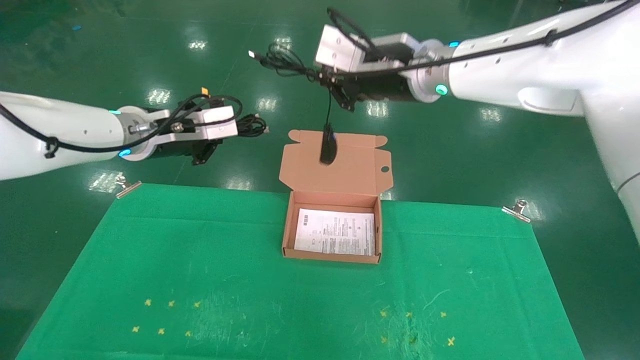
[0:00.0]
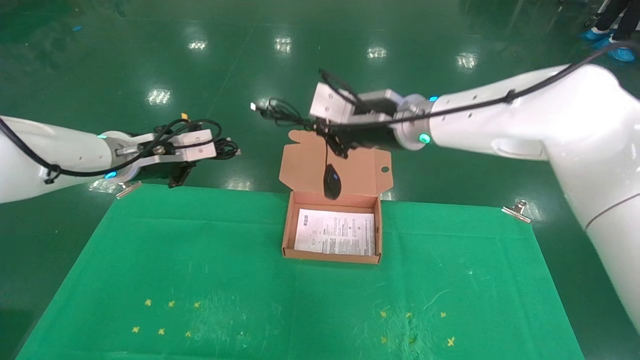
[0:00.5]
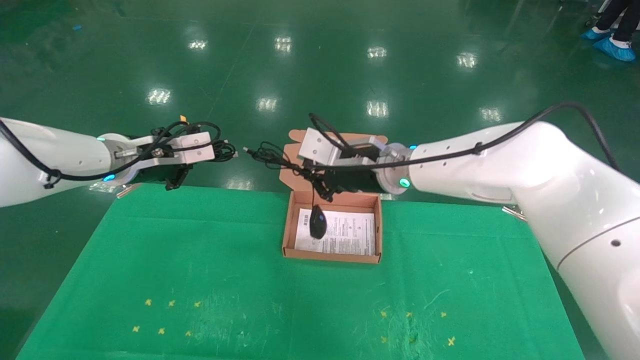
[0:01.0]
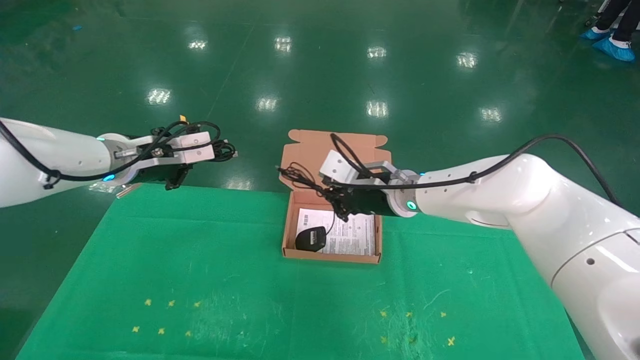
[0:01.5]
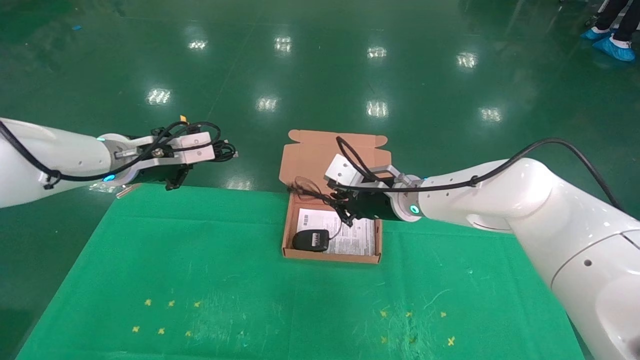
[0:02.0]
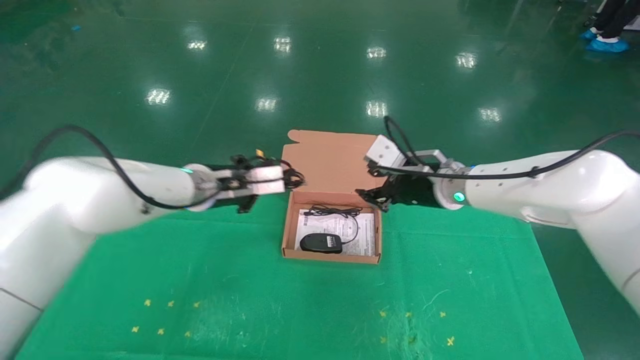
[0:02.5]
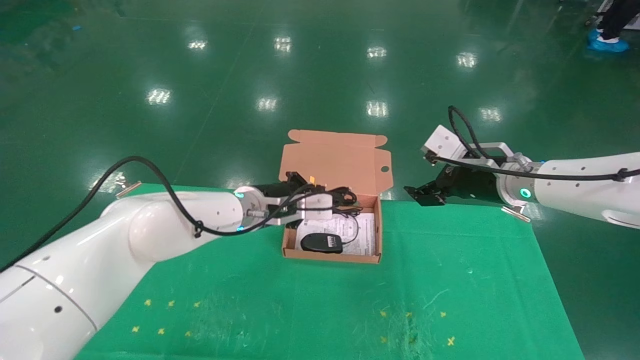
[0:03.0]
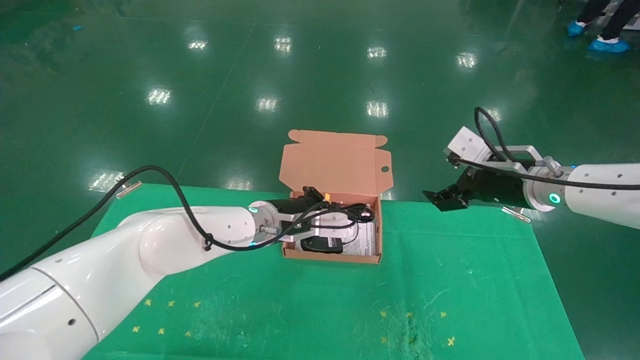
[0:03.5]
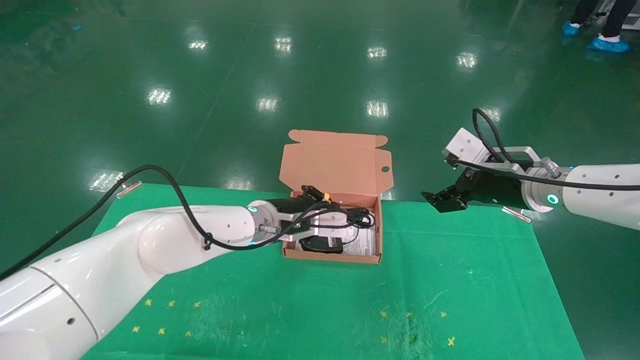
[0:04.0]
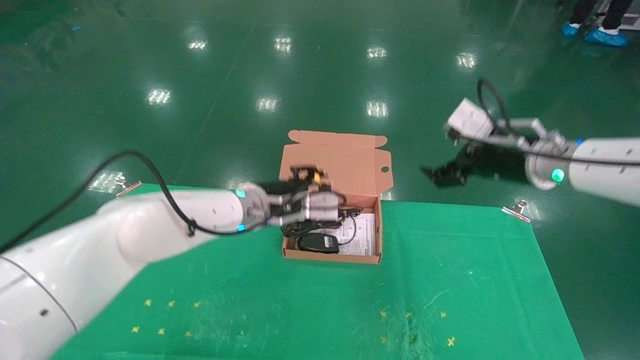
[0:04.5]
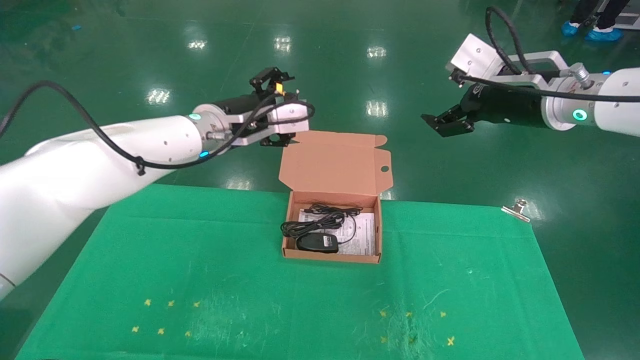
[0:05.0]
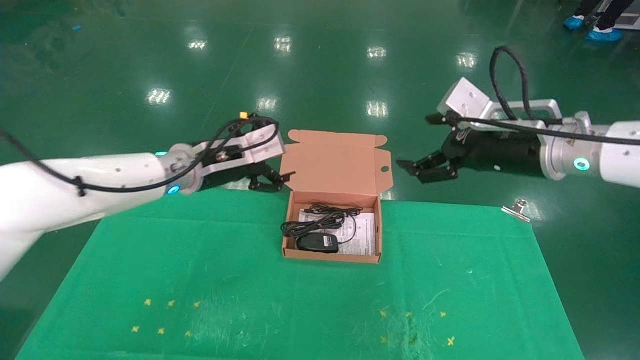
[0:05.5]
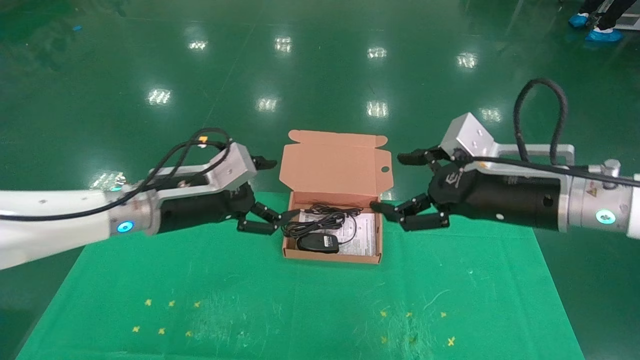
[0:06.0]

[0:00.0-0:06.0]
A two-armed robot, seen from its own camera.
Task of the whole recording: grasp data cable left put into box grasp mouse right put into box.
Step, 0:00.0 to 0:03.5: Place the mouse and power cord into the box.
0:00.0 to 0:02.0: The right gripper goes roughly 20 cm downward.
0:02.0 to 0:04.0: The right gripper is displaced to the right by some 15 cm, and opens its fingers; the left gripper moves to the right and downward, roughly 20 cm.
0:04.0 to 0:06.0: The left gripper goes about 15 cm to the left, backward and upward, and opens; the right gripper heads backward, covering about 10 cm, and moves about 10 cm upward and comes back.
